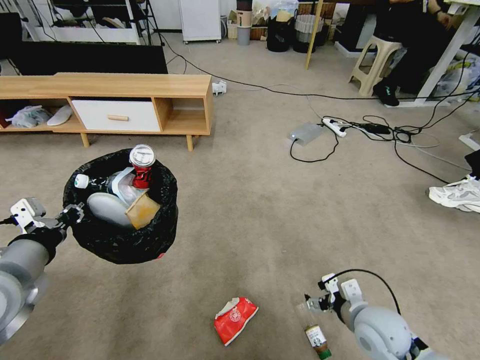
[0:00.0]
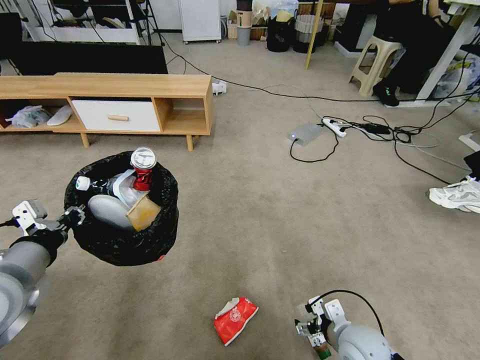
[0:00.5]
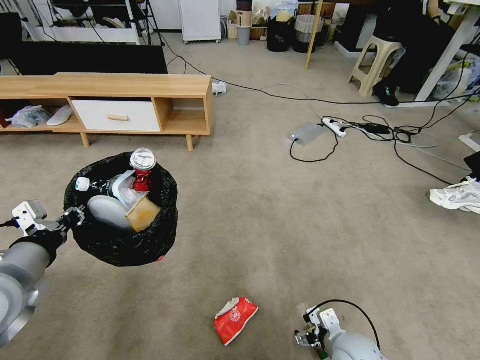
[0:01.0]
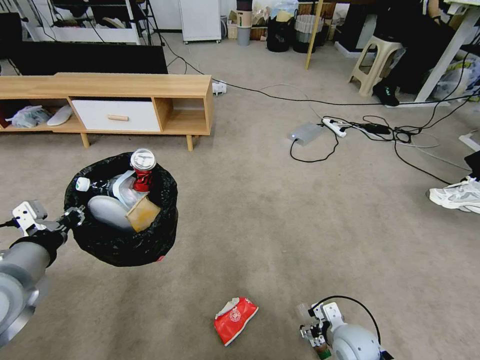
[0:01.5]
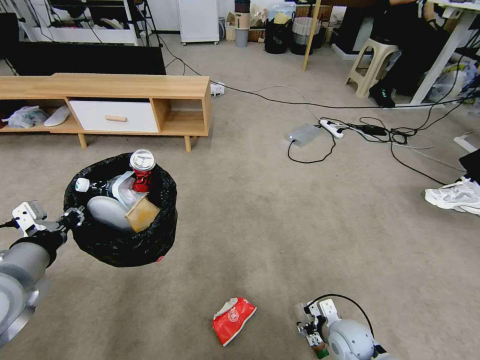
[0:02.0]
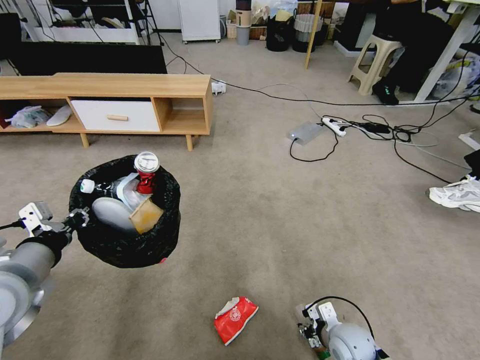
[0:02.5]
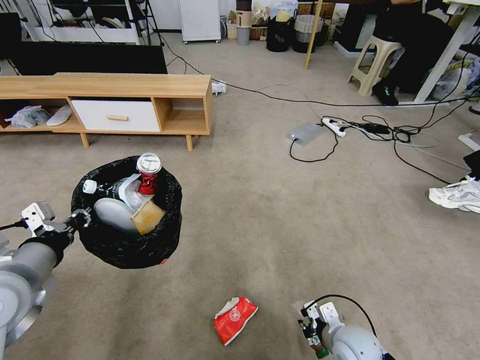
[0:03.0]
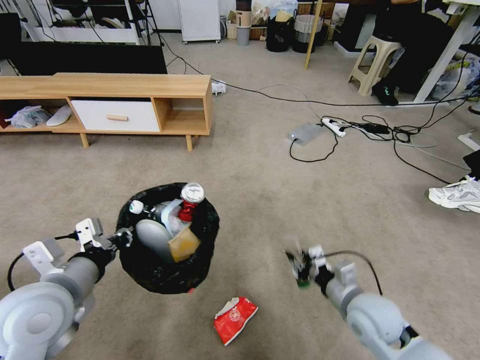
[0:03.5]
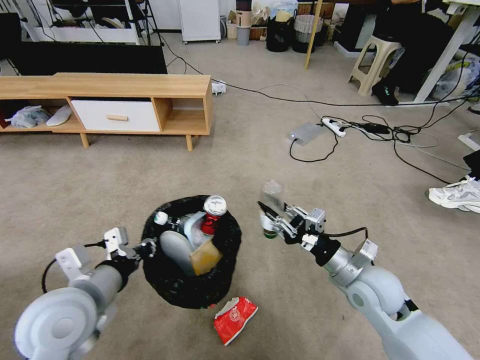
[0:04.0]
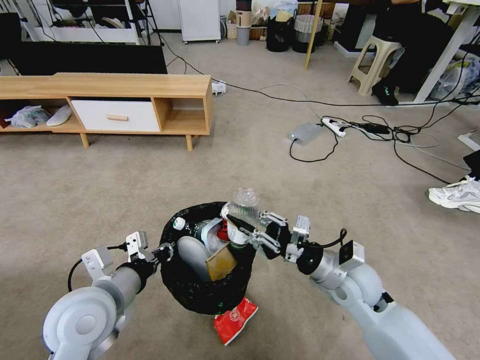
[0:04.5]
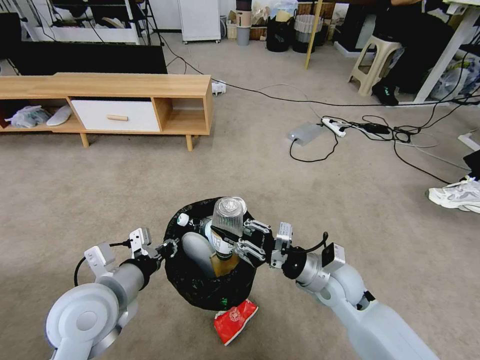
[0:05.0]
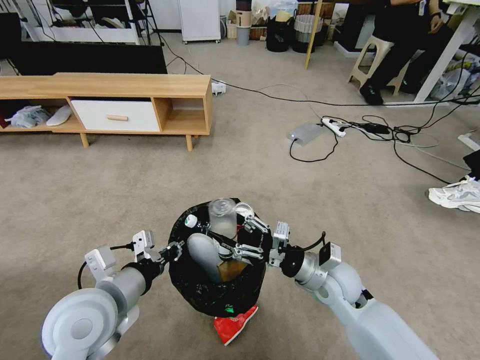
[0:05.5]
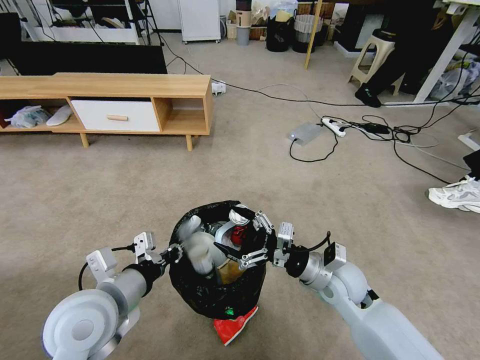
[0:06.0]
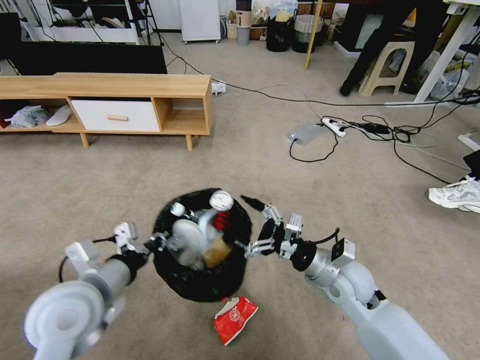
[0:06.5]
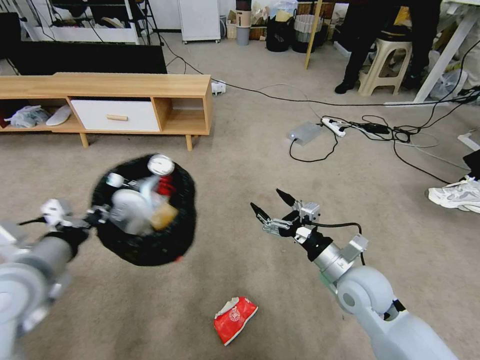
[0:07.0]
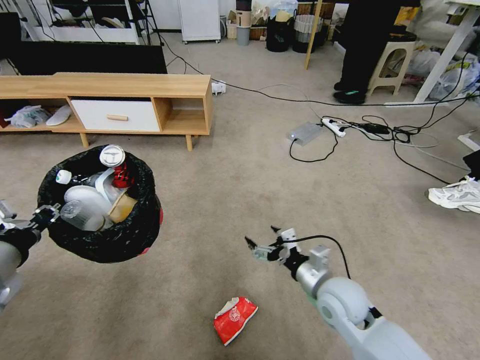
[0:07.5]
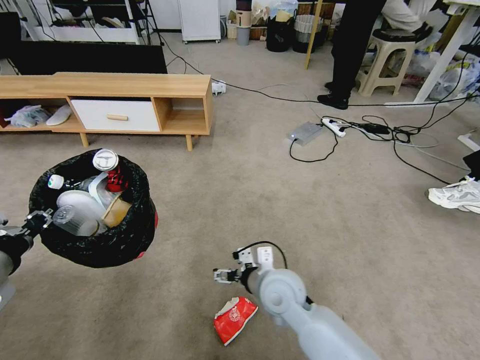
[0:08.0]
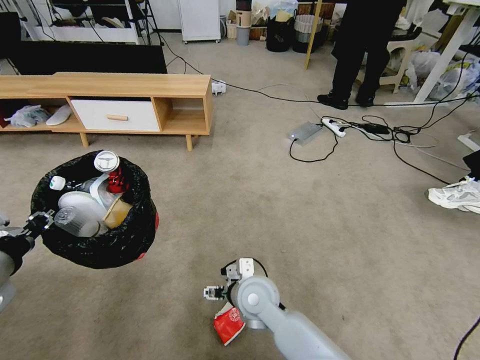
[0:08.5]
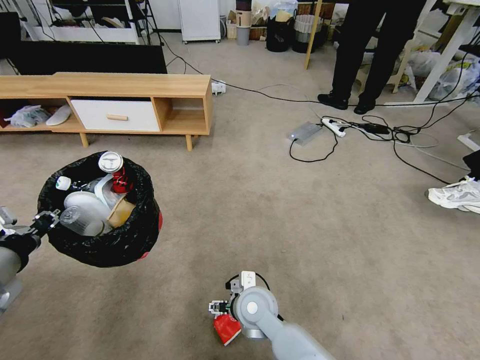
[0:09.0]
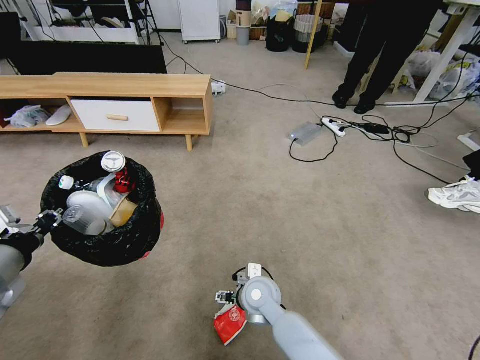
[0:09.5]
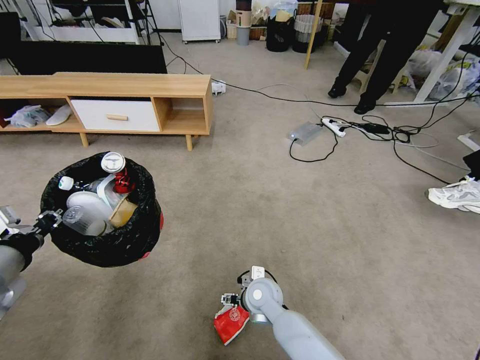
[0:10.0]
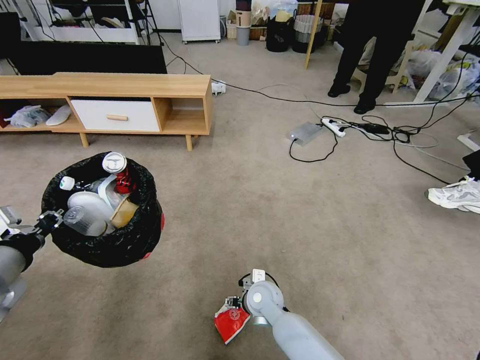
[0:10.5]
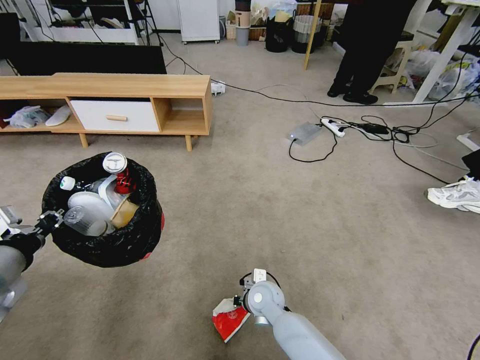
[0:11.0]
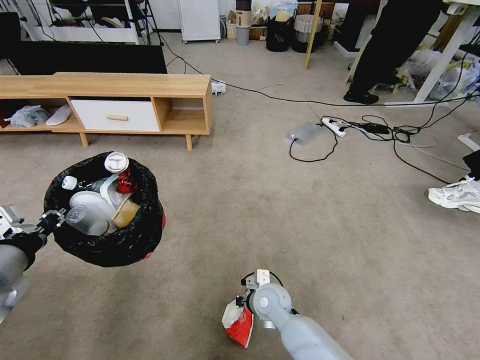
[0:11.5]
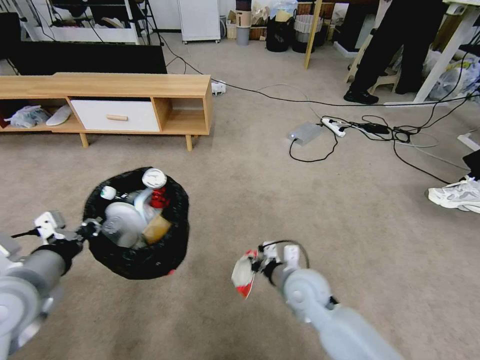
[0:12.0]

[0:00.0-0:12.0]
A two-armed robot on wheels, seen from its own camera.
Task of the whole recording: Pick up the trash bin and place the garbage on the floor into it.
0:00.0 to 0:02.0: The right gripper is displaced downward by some 10 cm.
0:02.0 to 0:04.0: The left gripper heads to the right and downward, covering roughly 10 cm; the right gripper heads upward, covering roughly 20 cm, and closes its fingers.
0:04.0 to 0:06.0: The right gripper moves to the left, approximately 5 cm, and opens up.
0:06.0 to 0:08.0: The right gripper travels to the left by approximately 15 cm, while the left gripper goes about 15 cm to the left and upward.
0:08.0 to 0:10.0: The right gripper is displaced downward by some 10 cm.
0:10.0 to 0:12.0: The right gripper goes roughly 10 cm upward and to the right, and closes, while the left gripper ends up about 5 cm from where it was.

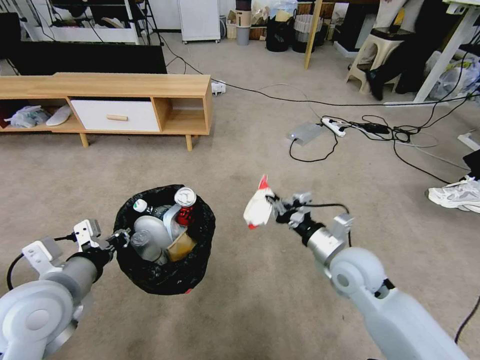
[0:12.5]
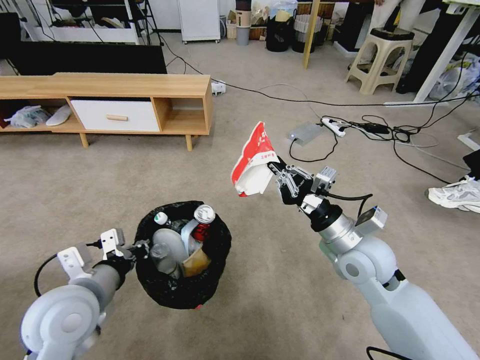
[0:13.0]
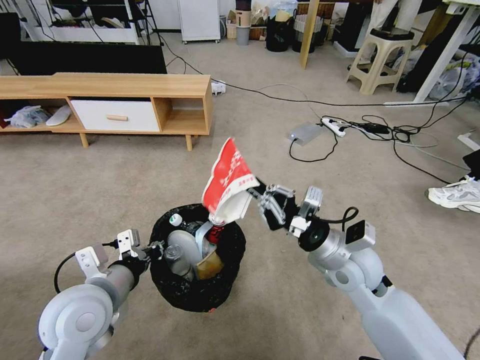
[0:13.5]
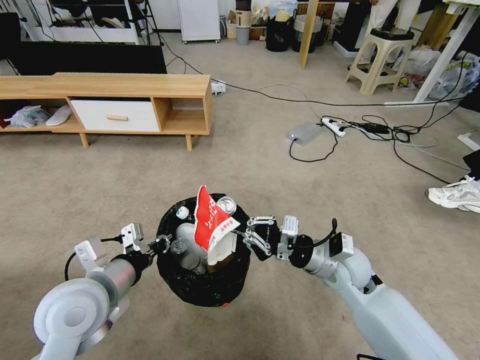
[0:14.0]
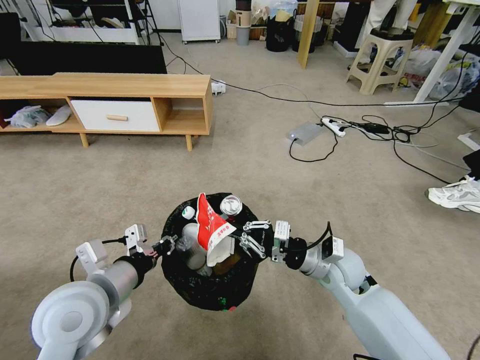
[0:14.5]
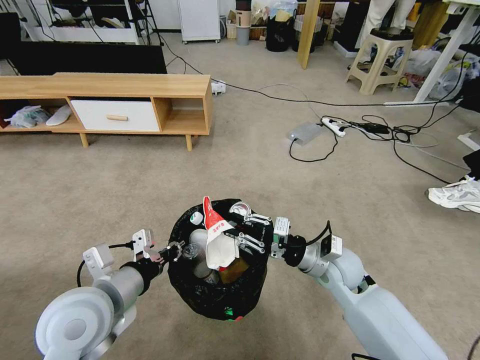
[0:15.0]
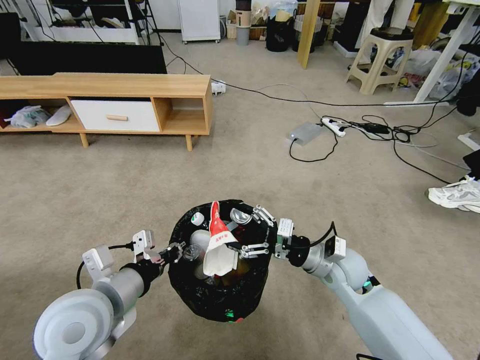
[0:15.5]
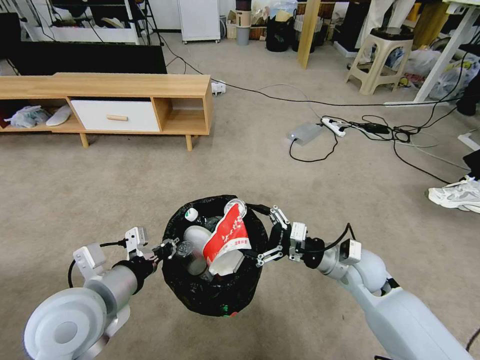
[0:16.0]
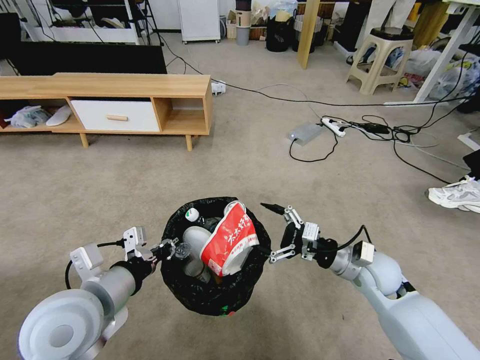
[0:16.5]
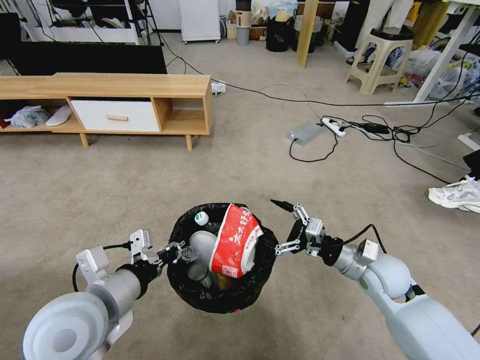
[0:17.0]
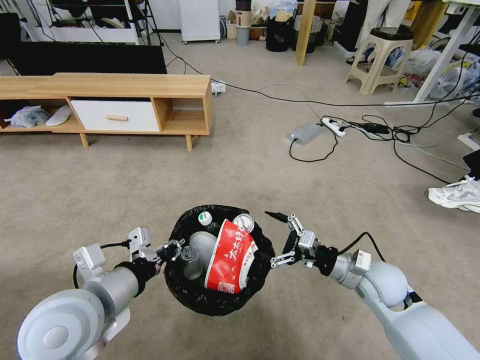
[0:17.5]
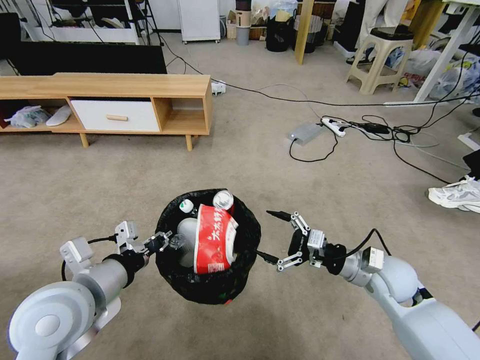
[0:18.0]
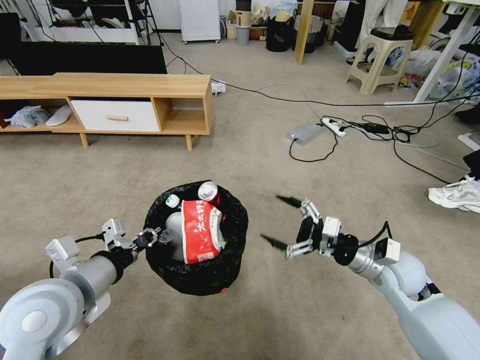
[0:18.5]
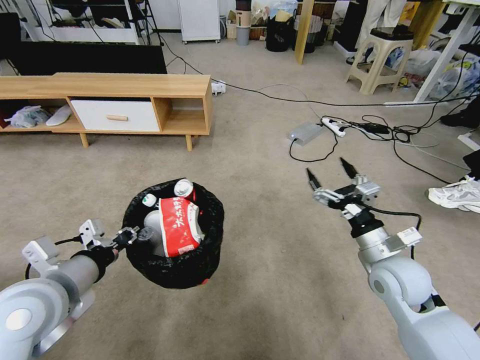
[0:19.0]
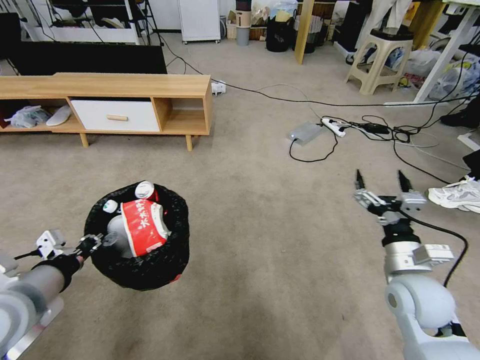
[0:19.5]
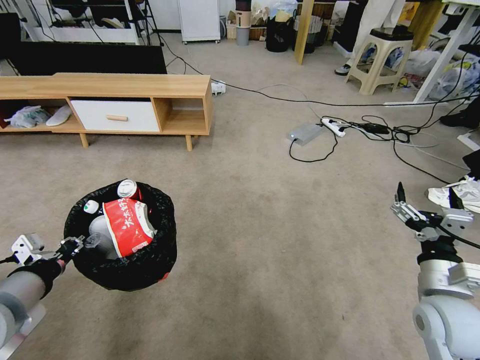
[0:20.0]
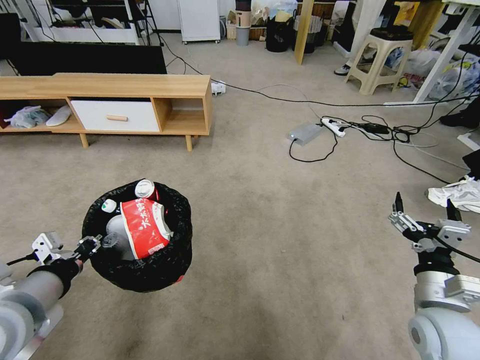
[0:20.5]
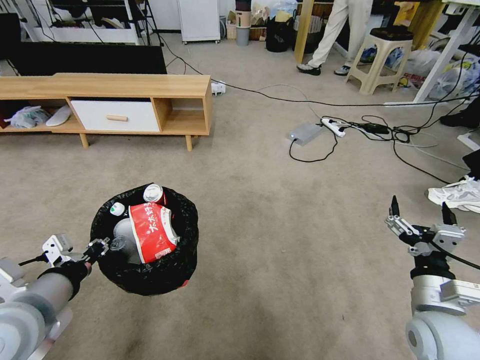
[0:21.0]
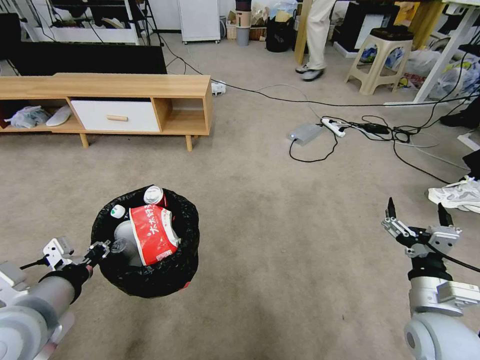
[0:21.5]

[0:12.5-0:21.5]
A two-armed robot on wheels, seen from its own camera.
Task of the whole recording: Pick up the trash bin and place the garbage on the floor into it.
0:12.5 to 0:14.5: The left gripper travels to the right by roughly 5 cm.
0:14.5 to 0:17.0: The right gripper moves to the right, approximately 10 cm, and opens up.
0:17.0 to 0:19.5: The left gripper moves to the left, approximately 10 cm, and closes its fingers, while the right gripper is displaced backward by some 5 cm.
0:19.5 to 0:21.5: The right gripper travels backward by some 5 cm.
